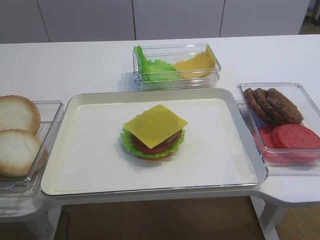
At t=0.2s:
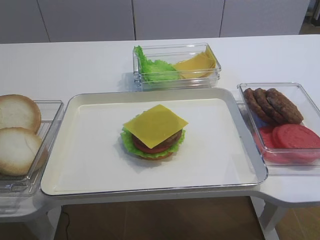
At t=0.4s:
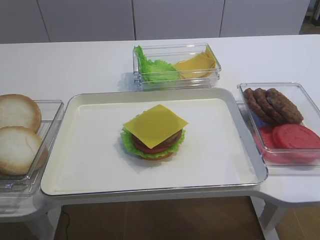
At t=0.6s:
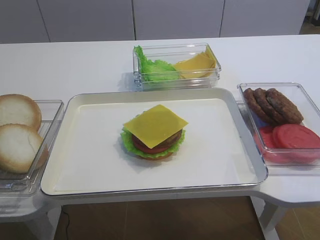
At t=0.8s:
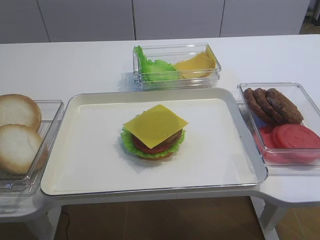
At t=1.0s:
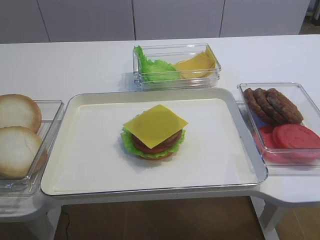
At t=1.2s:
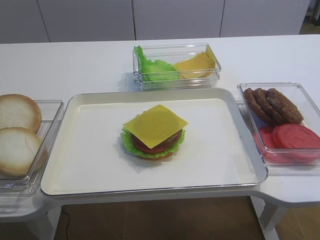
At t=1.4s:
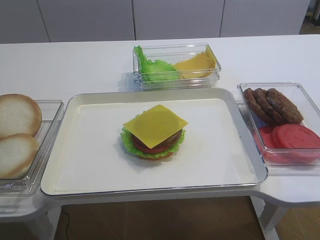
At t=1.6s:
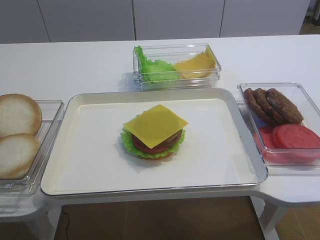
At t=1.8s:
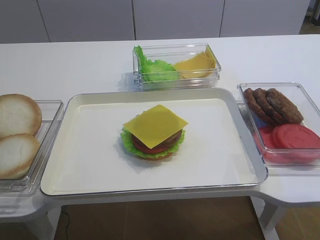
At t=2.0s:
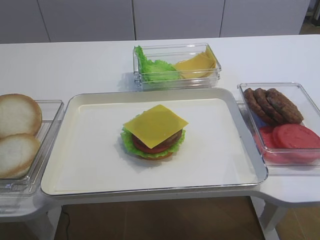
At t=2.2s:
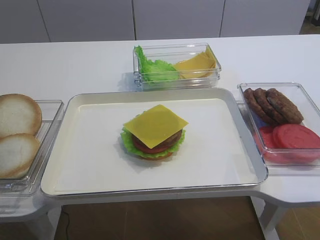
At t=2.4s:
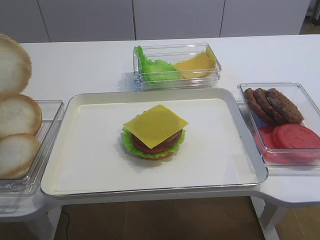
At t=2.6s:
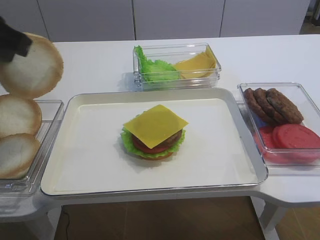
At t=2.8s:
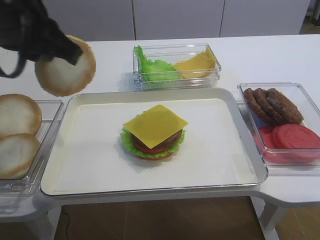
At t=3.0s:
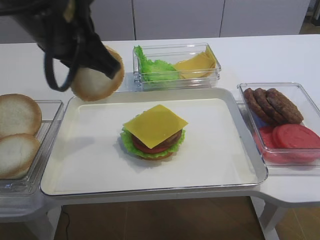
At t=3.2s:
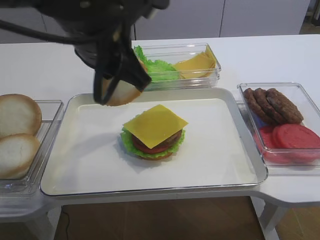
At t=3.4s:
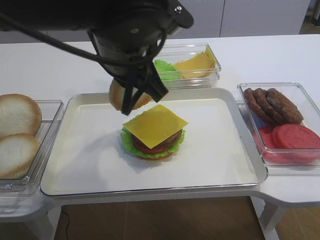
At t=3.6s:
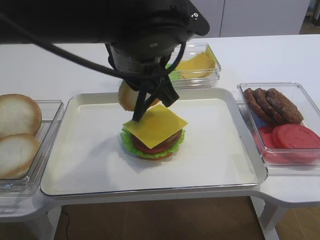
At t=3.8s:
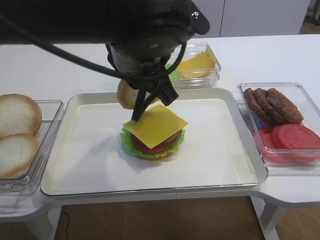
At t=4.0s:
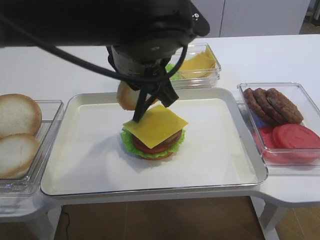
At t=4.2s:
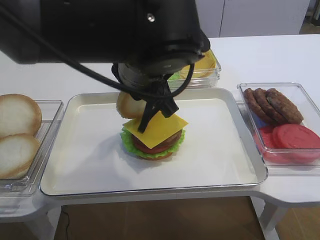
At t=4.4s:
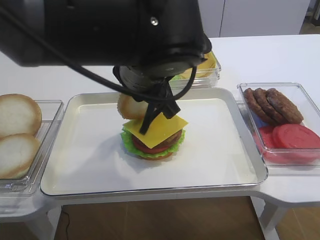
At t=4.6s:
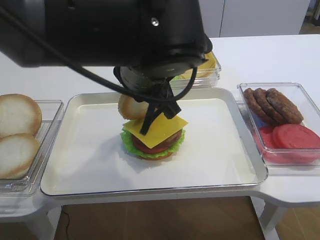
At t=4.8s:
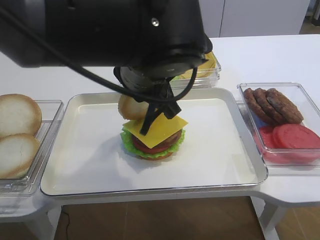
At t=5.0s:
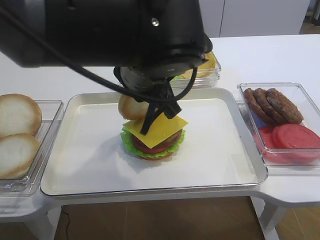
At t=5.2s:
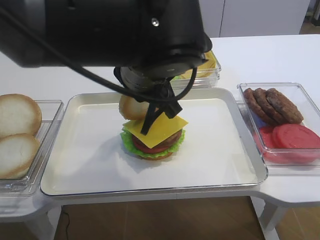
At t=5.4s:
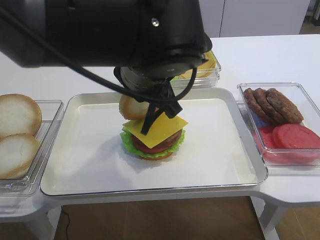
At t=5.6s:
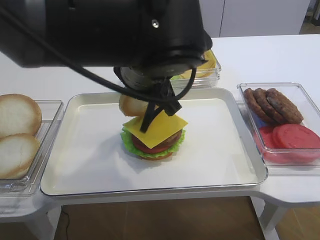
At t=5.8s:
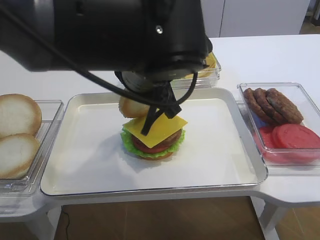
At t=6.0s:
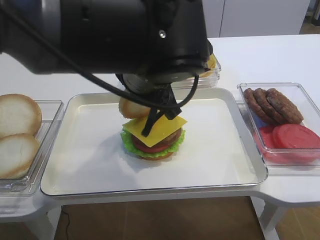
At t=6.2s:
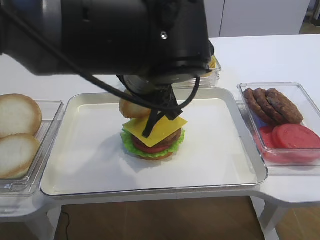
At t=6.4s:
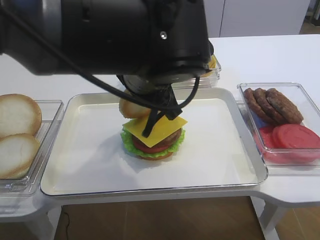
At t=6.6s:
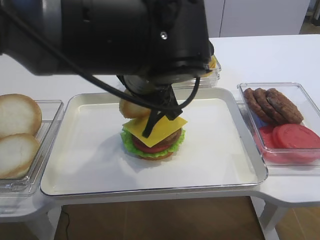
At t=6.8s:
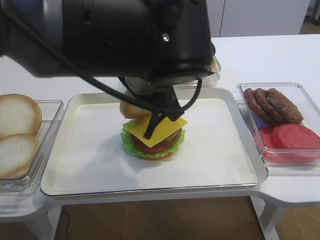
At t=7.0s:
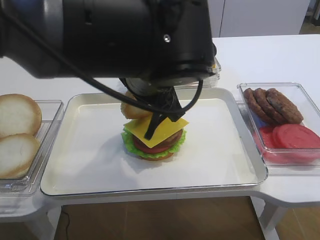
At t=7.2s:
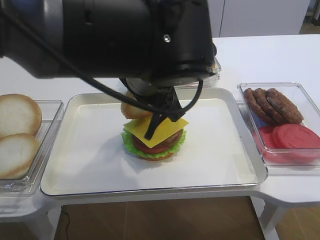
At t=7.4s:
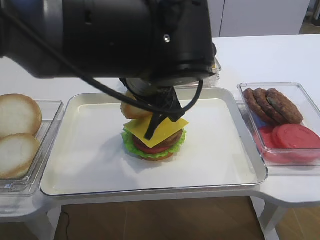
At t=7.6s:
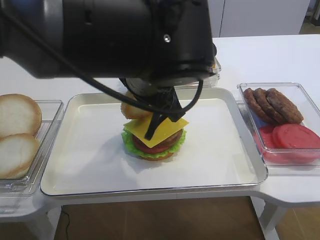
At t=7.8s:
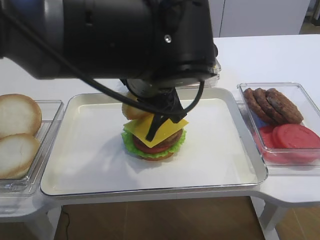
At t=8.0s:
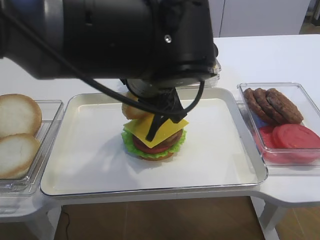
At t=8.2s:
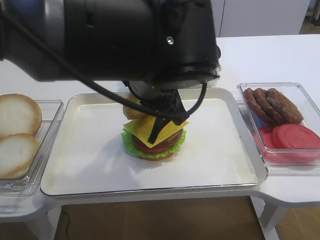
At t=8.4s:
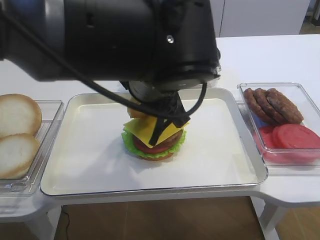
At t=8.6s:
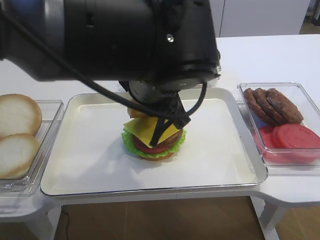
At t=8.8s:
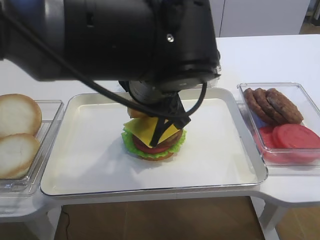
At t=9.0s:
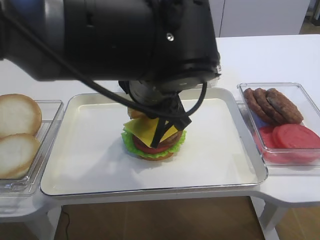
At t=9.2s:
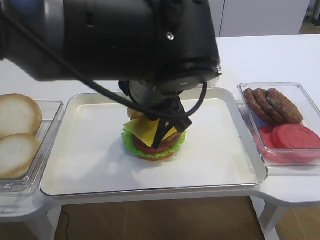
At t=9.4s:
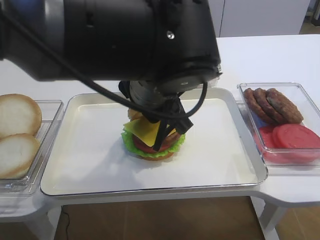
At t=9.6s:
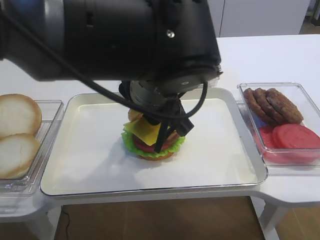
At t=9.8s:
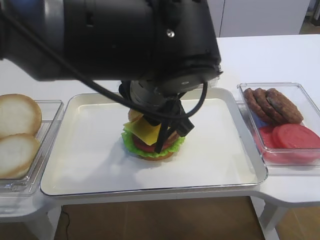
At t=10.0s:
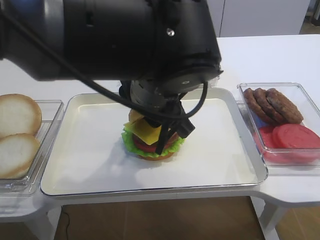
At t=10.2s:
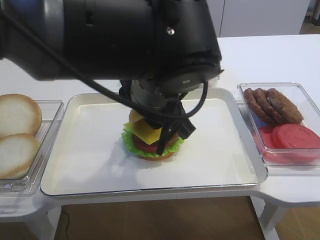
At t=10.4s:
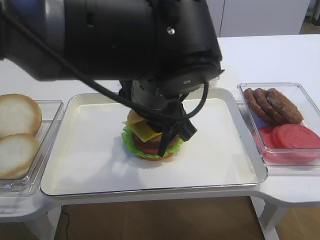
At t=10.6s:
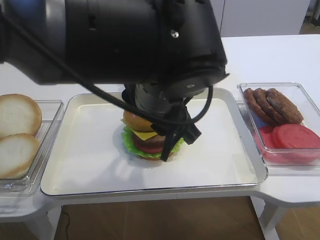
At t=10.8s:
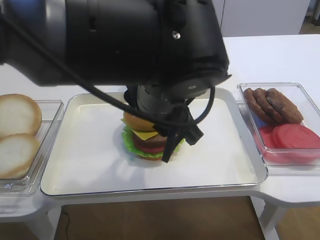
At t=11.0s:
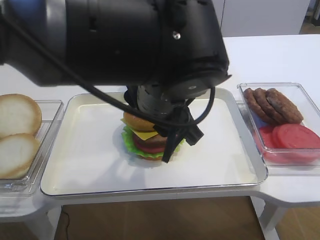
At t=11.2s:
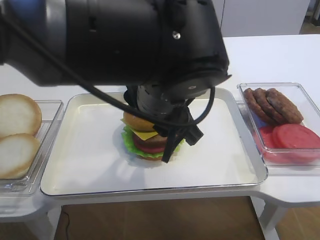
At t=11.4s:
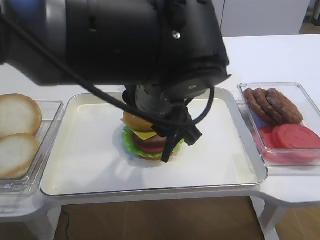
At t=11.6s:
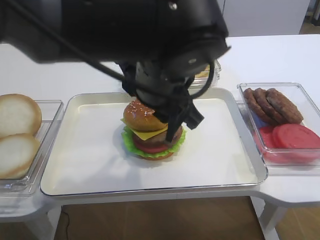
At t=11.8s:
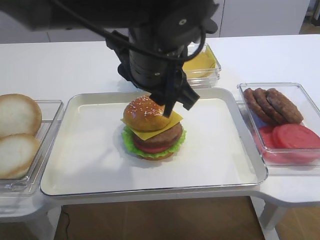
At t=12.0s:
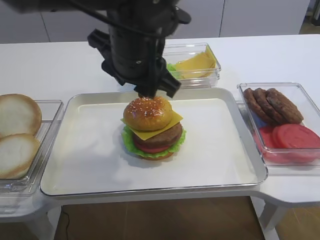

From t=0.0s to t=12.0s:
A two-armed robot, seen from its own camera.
Step, from t=0.0s to t=2.2s: Pick up the hamburger lid with the left gripper.
From t=0.0s to t=1.6s: The left gripper moves upward, roughly 5 cm.
From t=1.6s to t=3.0s: The left gripper shifts roughly 20 cm to the right and forward.
From t=3.0s to t=4.4s: The left gripper heads to the right and downward, covering approximately 10 cm.
From t=4.4s to t=7.6s: Both grippers stay about where they are.
From t=7.6s to t=9.0s: Both grippers stay put.
From t=9.0s to t=10.4s: The grippers make only small movements.
From t=10.4s to t=12.0s: The left gripper changes place by about 5 cm.

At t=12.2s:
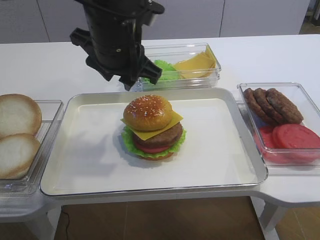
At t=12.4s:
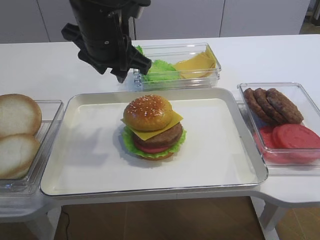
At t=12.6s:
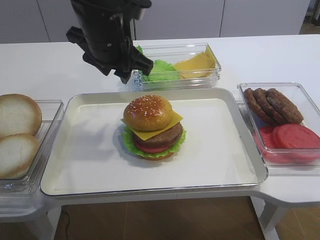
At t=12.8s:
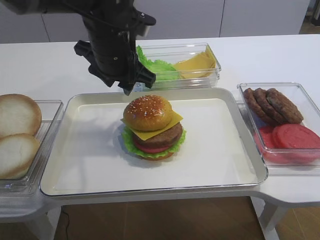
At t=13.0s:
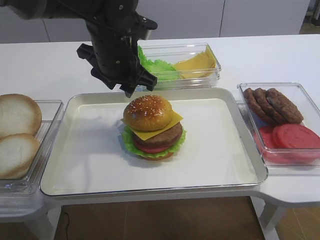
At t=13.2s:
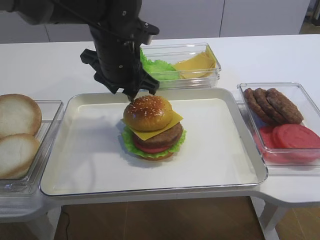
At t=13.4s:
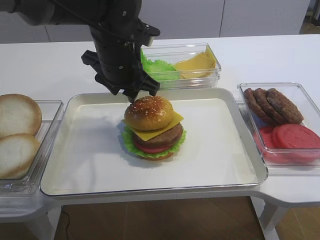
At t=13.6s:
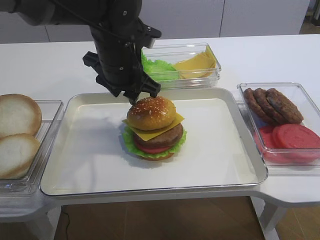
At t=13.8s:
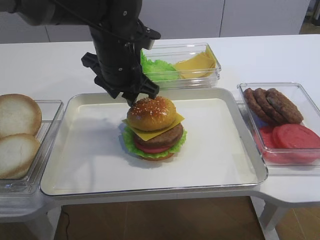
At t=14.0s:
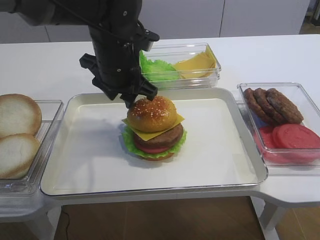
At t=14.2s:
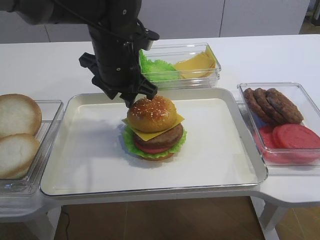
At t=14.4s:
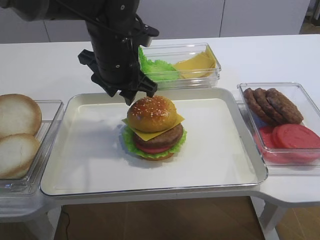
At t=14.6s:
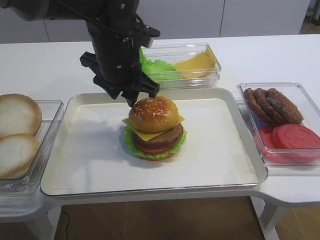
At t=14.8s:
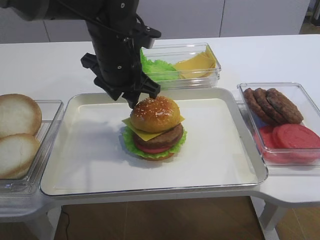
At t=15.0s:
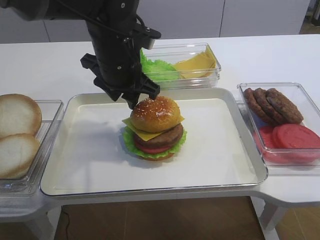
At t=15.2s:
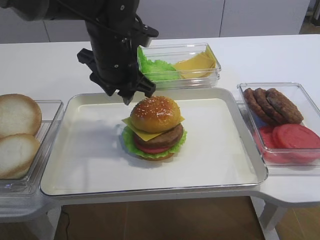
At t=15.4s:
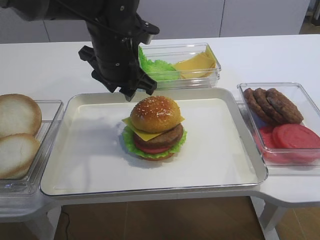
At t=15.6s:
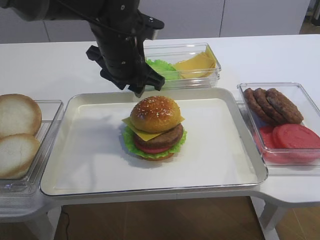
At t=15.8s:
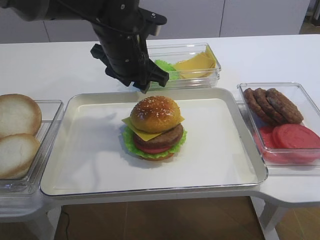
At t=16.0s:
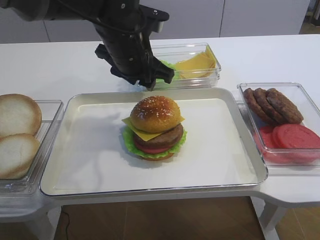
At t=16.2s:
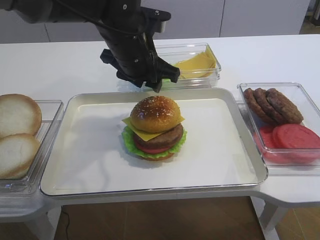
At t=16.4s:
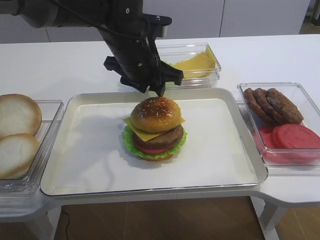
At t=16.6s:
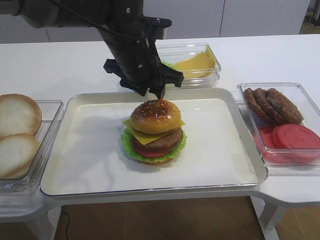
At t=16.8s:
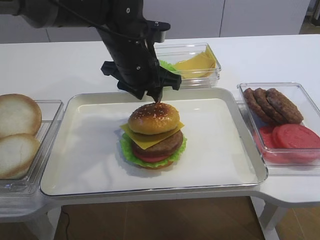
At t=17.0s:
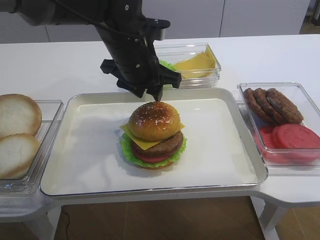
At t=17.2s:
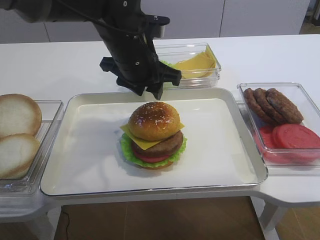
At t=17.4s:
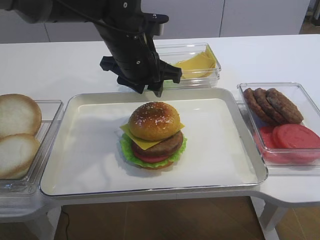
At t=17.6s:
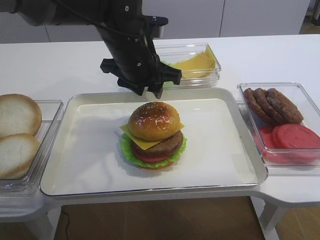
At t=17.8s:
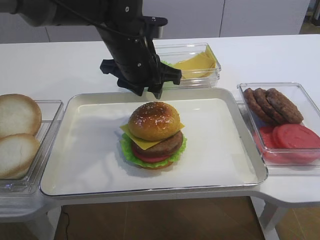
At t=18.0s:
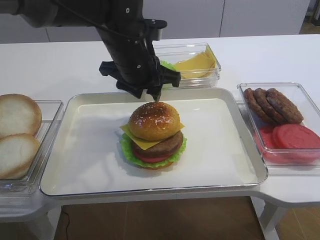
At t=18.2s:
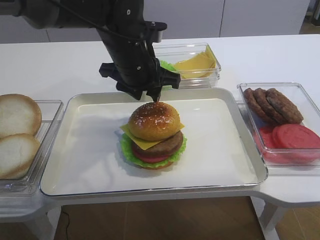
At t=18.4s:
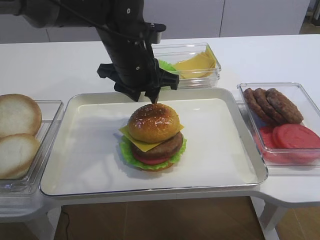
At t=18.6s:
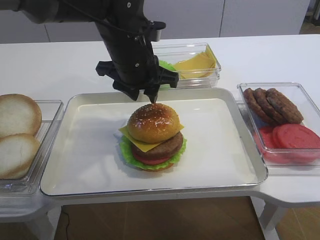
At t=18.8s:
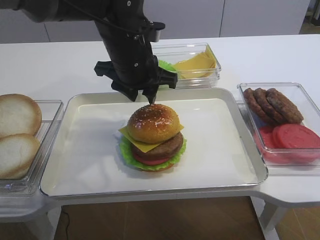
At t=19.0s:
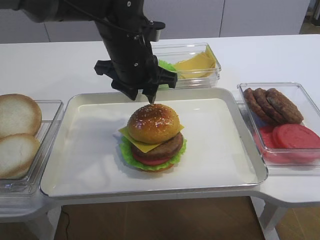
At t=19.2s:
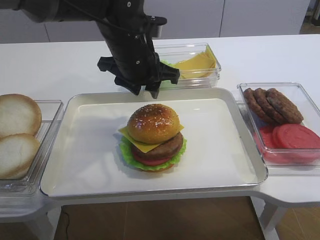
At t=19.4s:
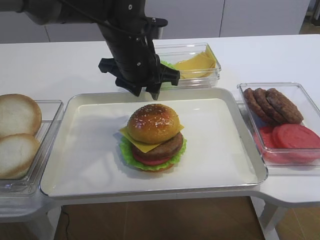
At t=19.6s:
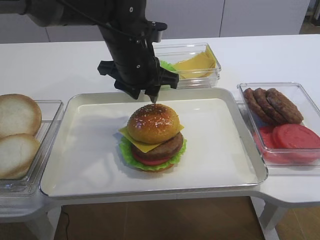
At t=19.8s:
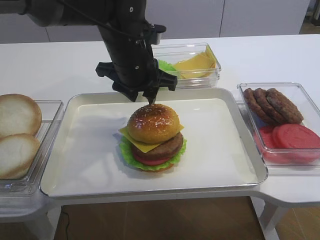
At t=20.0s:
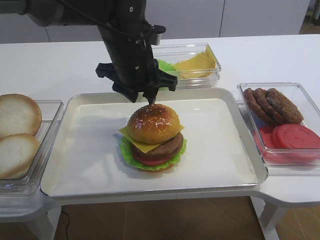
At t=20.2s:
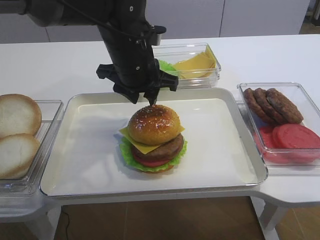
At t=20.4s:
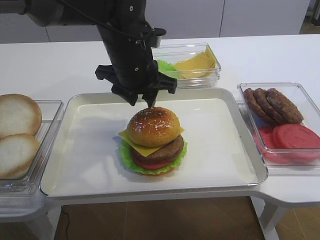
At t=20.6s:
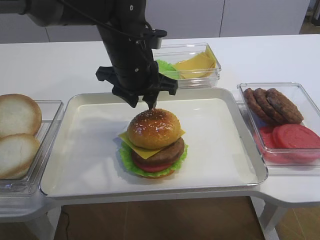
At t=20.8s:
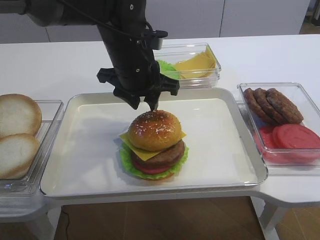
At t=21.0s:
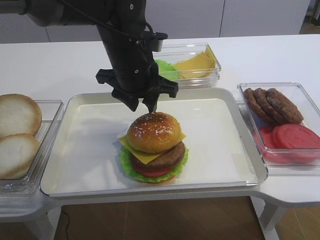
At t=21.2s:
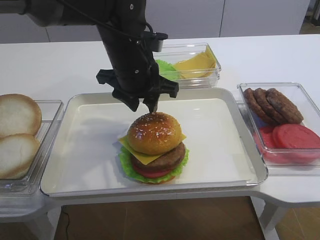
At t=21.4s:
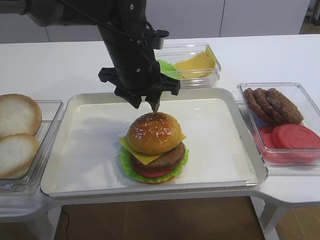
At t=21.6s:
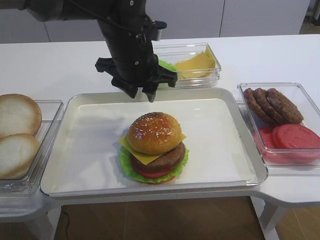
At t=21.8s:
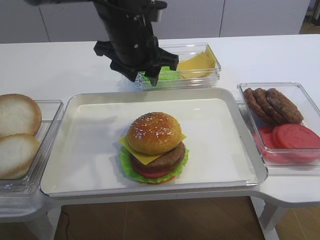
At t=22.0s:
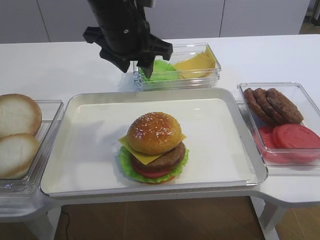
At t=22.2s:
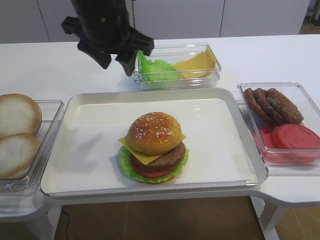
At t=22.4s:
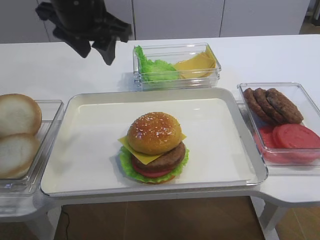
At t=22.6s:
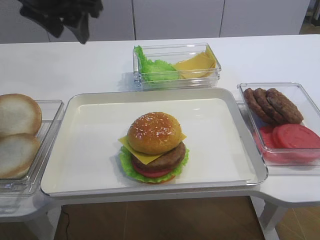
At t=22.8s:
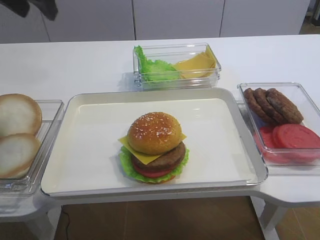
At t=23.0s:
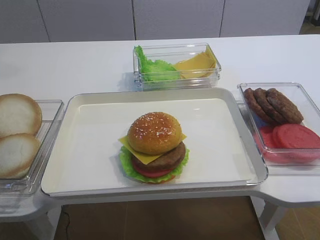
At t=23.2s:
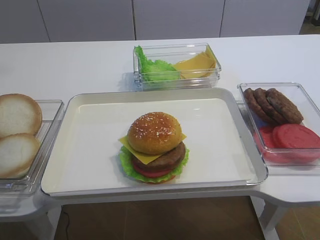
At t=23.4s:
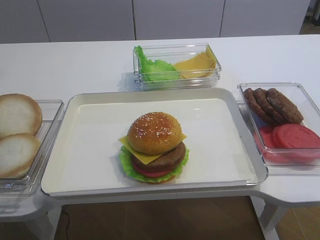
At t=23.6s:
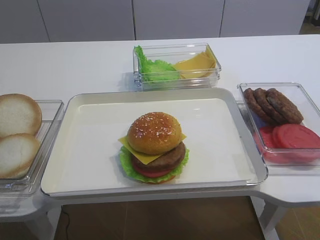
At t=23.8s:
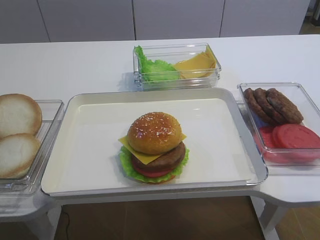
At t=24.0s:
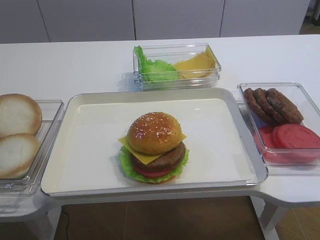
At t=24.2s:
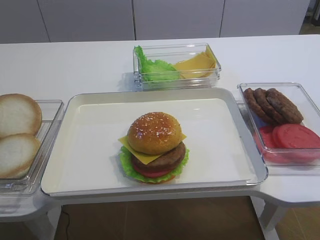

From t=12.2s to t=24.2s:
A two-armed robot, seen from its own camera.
From t=12.2s to t=13.8s: The left gripper goes roughly 5 cm downward.
From t=13.8s to t=15.2s: The two grippers keep their place.
From t=15.2s to t=18.2s: There are only small adjustments of the grippers.
From t=18.2s to t=19.8s: Both grippers stay about where they are.
From t=19.8s to t=21.2s: The grippers stay close to where they were, moving slightly.
From t=21.2s to t=22.6s: The left gripper heads upward and to the left, covering some 15 cm.
From t=22.6s to t=24.2s: The left gripper shifts roughly 25 cm backward and to the left.
